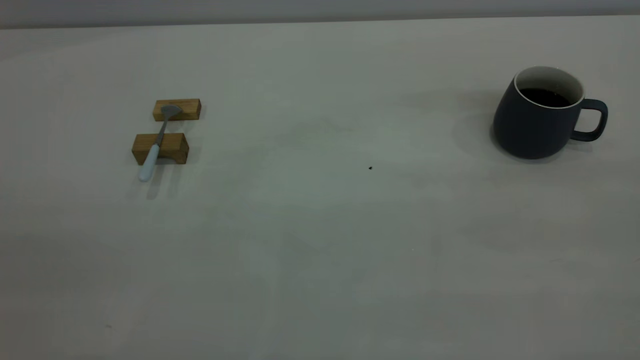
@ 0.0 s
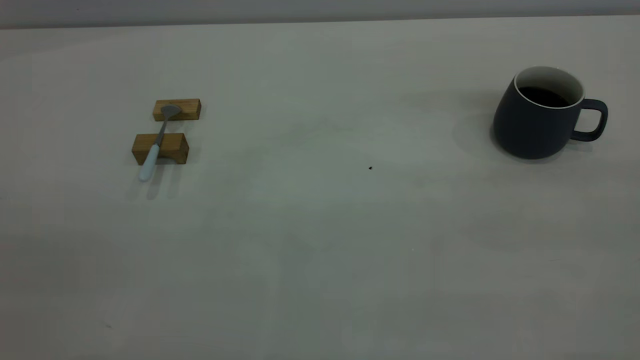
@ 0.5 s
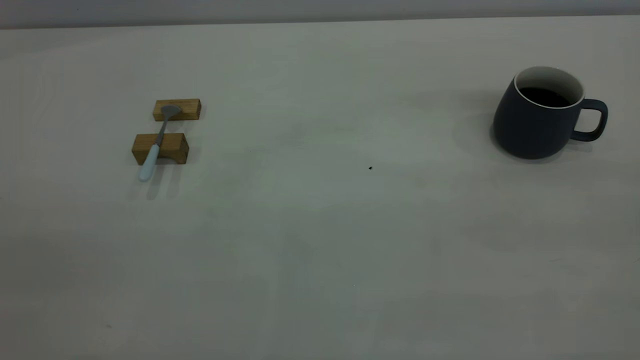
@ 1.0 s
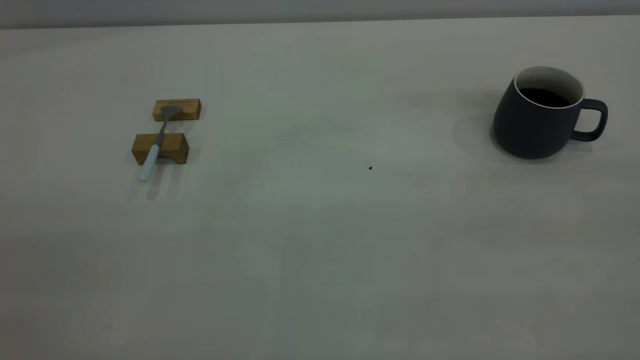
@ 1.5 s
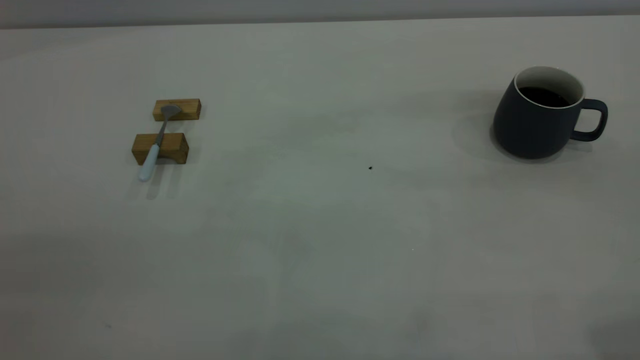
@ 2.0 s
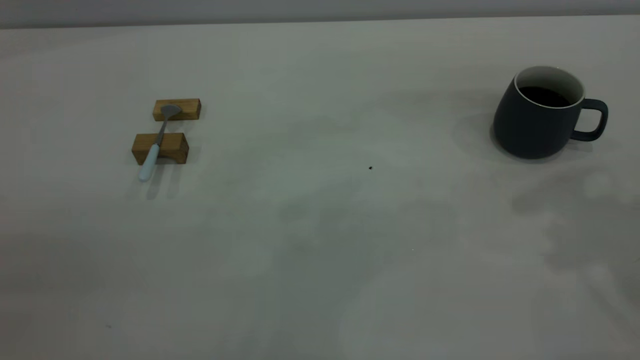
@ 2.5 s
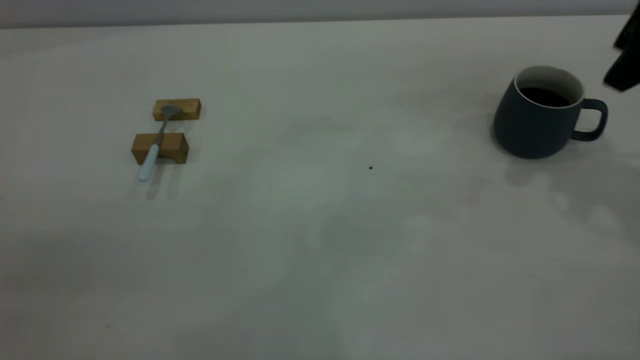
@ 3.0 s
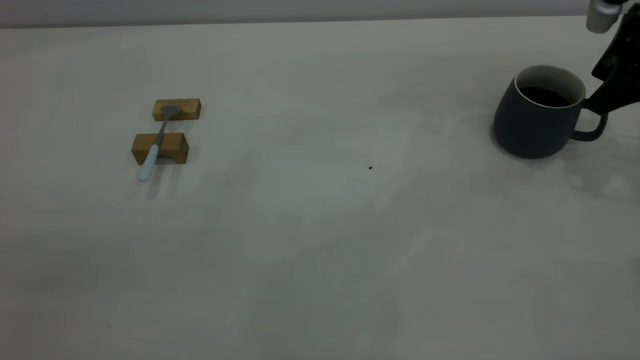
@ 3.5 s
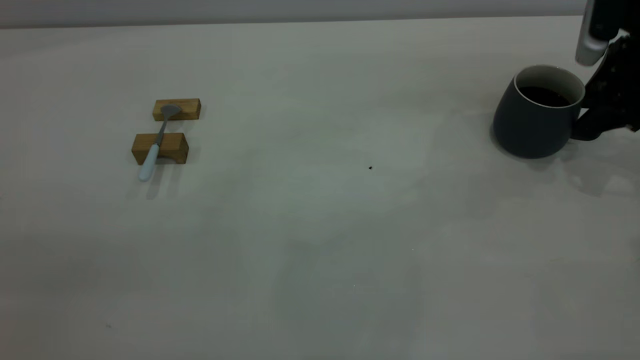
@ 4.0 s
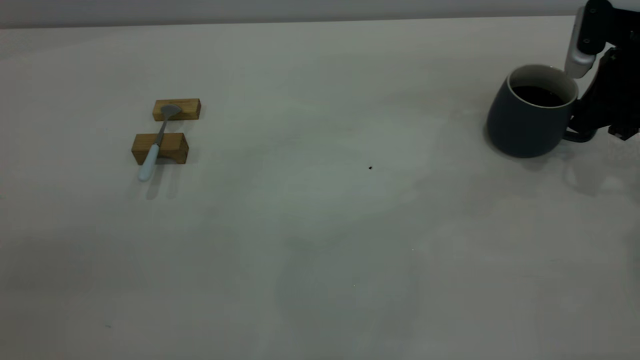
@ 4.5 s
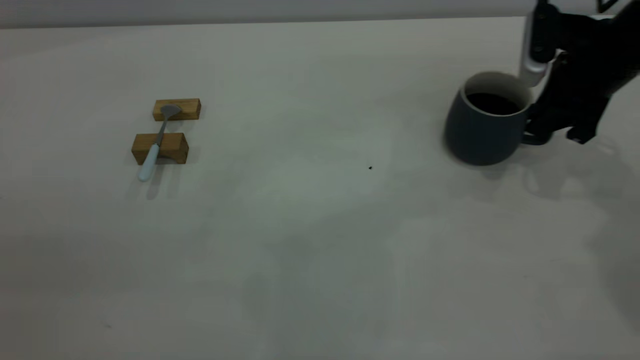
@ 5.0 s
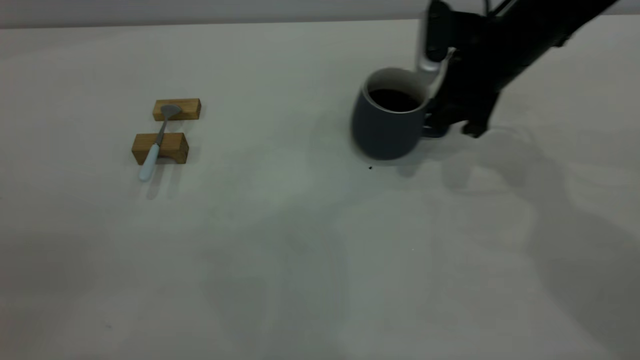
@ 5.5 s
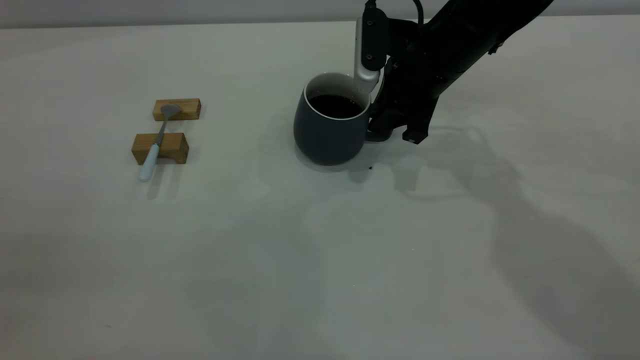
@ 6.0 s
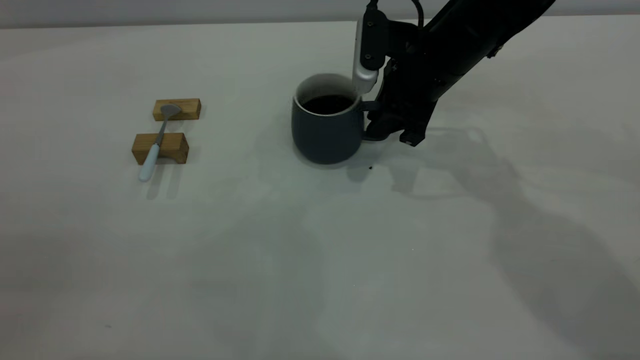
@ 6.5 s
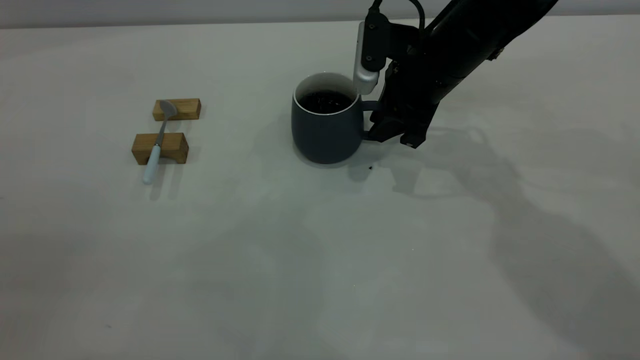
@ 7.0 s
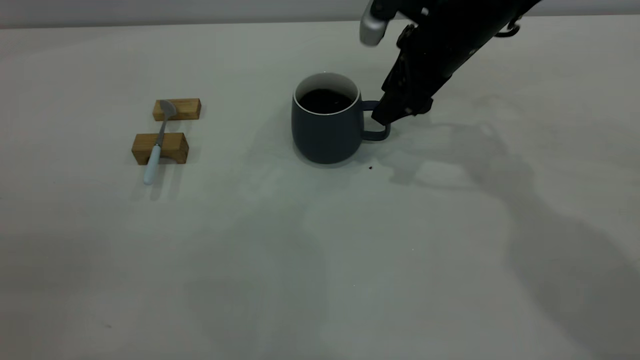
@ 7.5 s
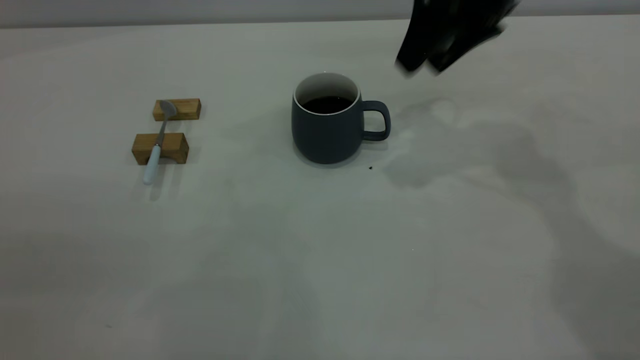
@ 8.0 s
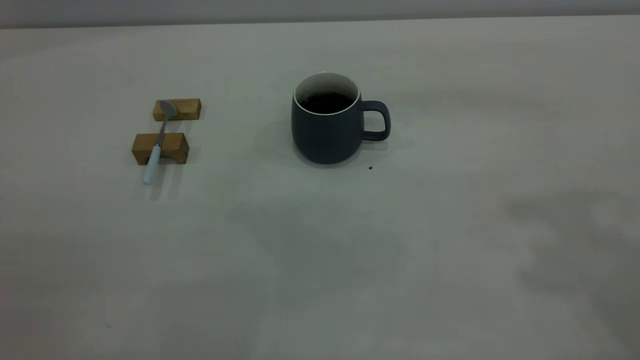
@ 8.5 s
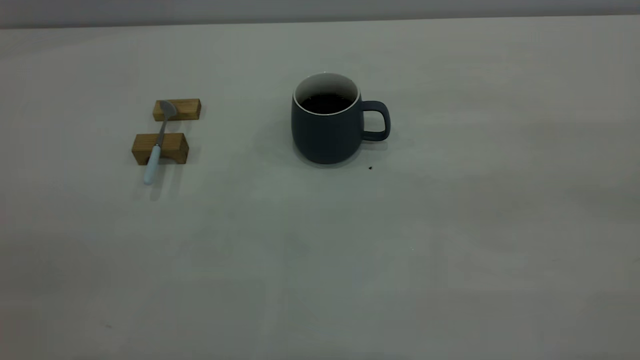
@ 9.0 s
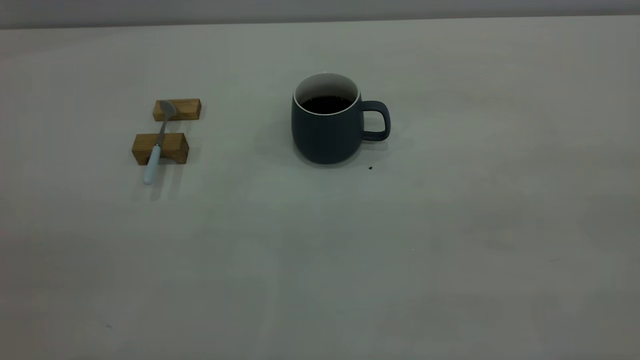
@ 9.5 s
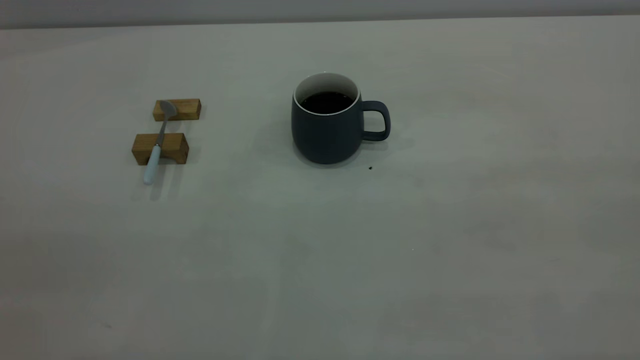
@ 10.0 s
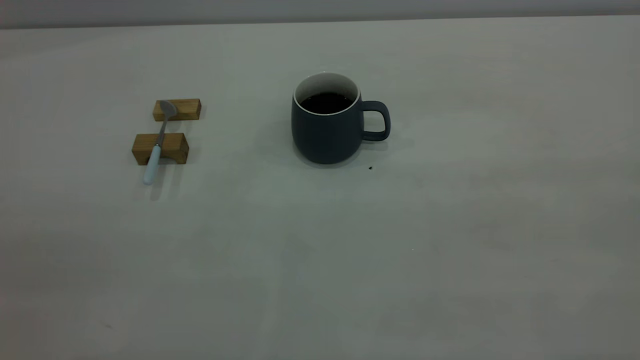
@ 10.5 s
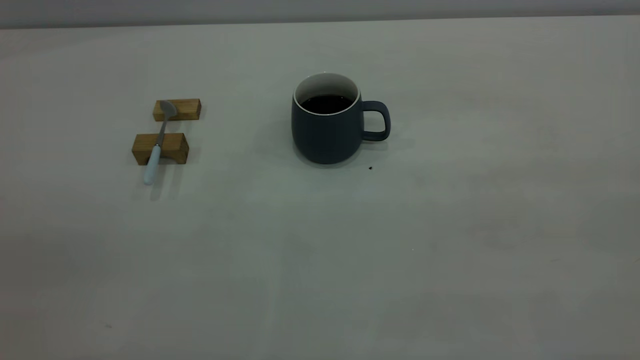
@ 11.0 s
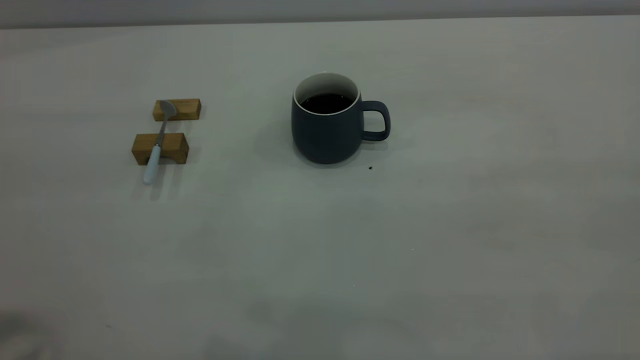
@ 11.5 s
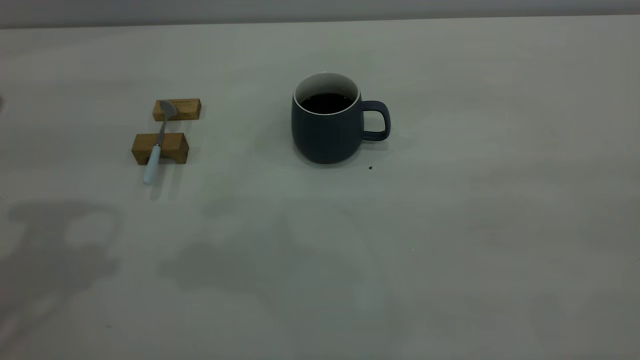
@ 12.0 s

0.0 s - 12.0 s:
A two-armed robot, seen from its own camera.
Step, 0.0 s - 7.5 s: Move the cup with coffee to the center of view.
2.0 s - 4.0 s: The right gripper is displaced forward and downward by some 35 cm.
4.0 s - 6.0 s: The right gripper heads to the left, covering some 20 cm, and closes.
6.0 s - 8.0 s: The right gripper is displaced upward by roughly 15 cm, and opens up.
8.0 s - 10.0 s: The right gripper goes approximately 40 cm backward.

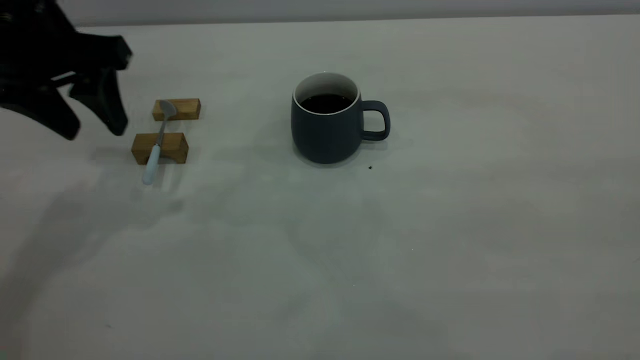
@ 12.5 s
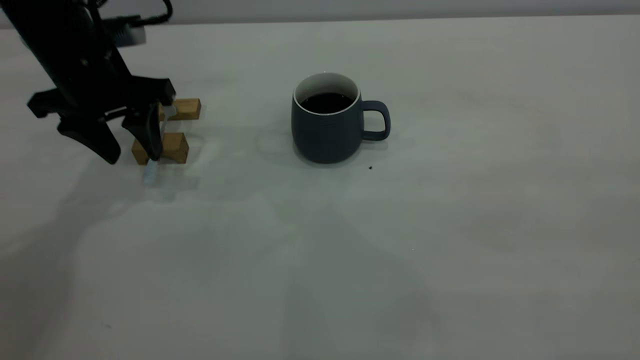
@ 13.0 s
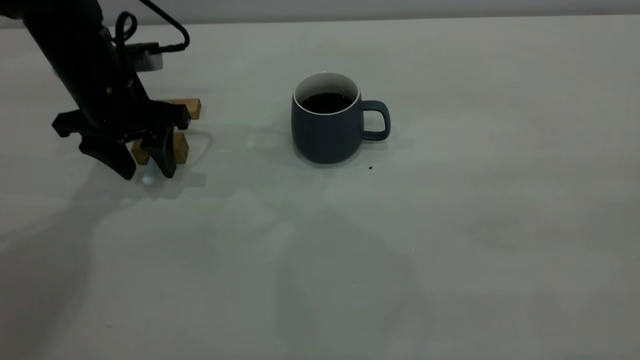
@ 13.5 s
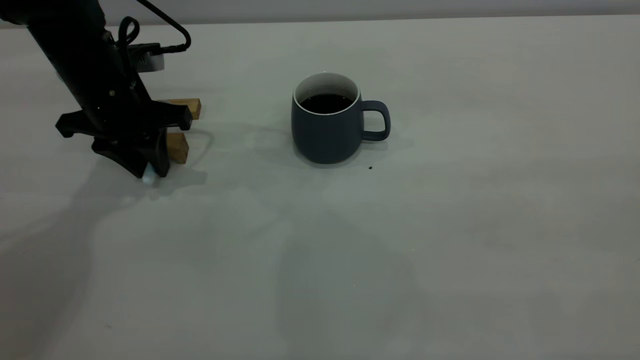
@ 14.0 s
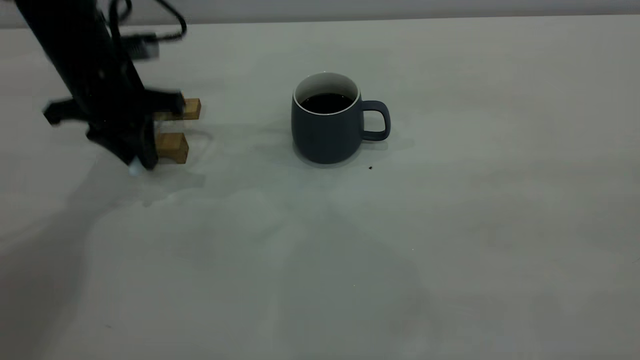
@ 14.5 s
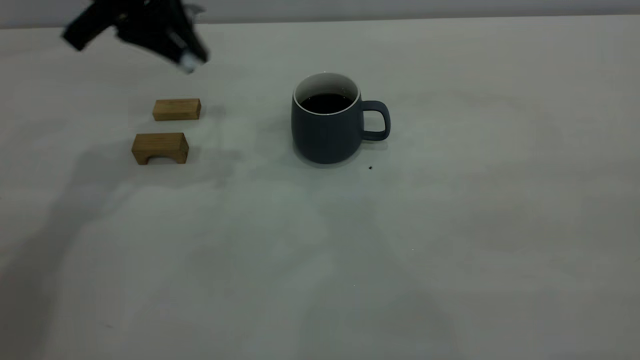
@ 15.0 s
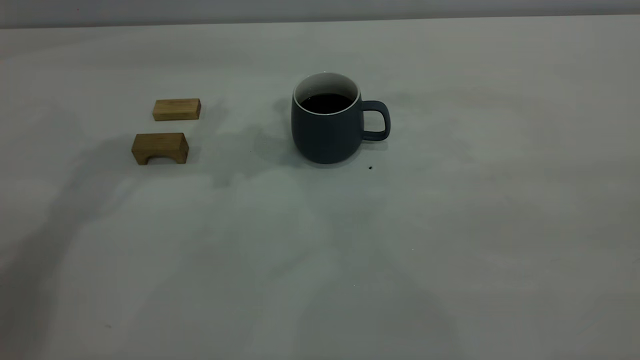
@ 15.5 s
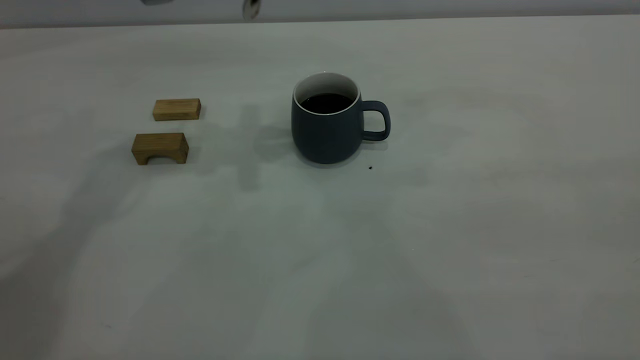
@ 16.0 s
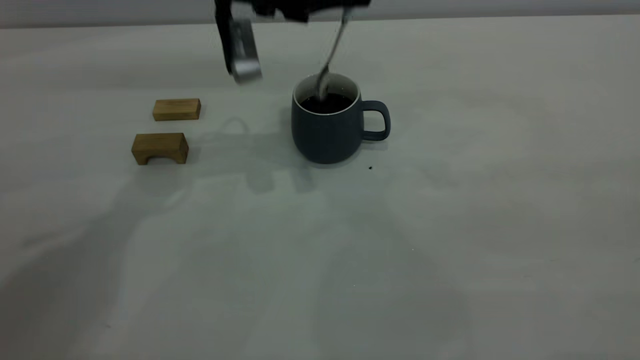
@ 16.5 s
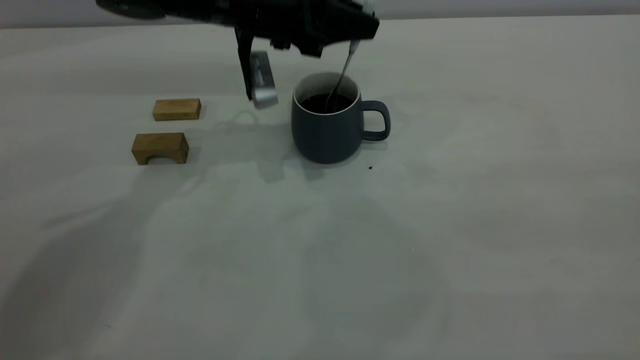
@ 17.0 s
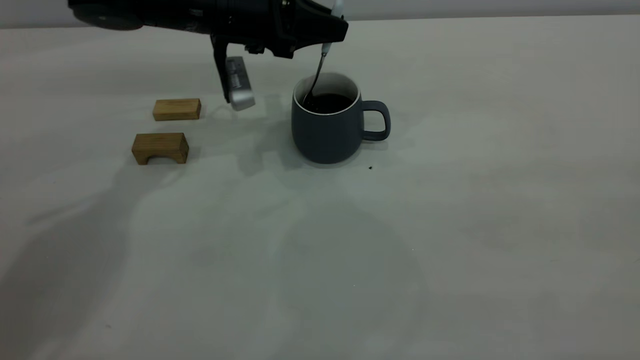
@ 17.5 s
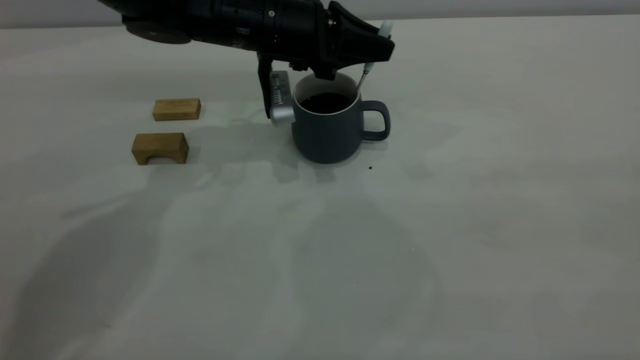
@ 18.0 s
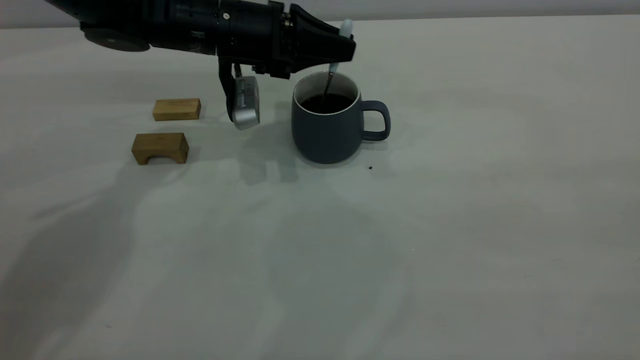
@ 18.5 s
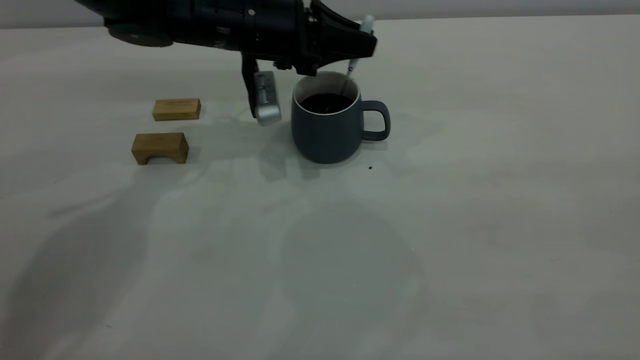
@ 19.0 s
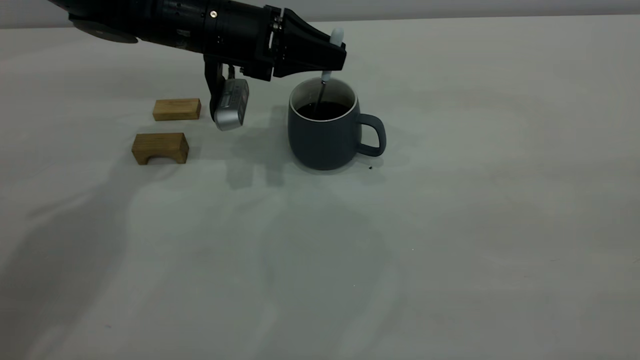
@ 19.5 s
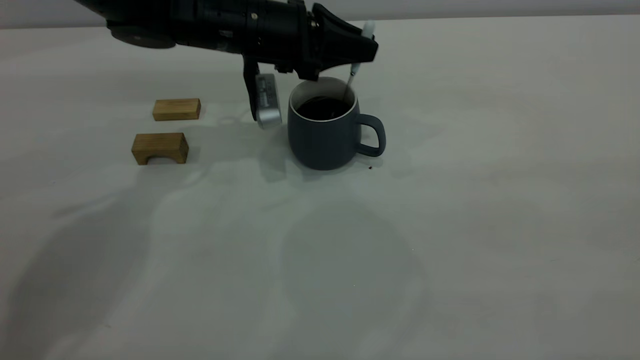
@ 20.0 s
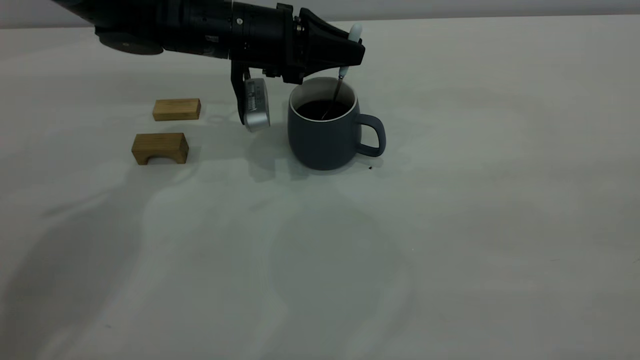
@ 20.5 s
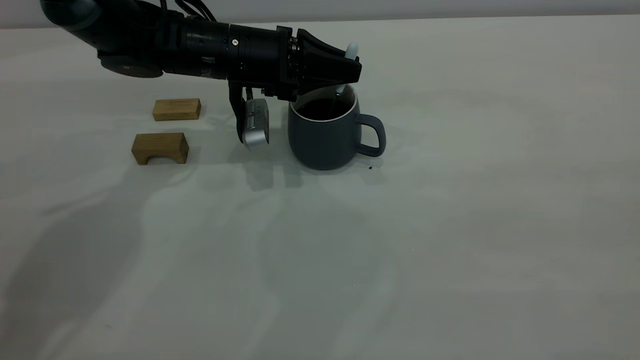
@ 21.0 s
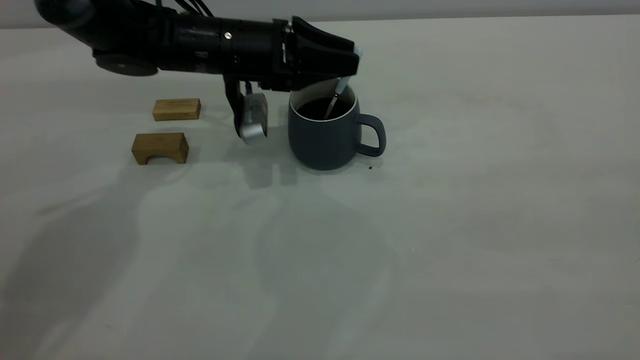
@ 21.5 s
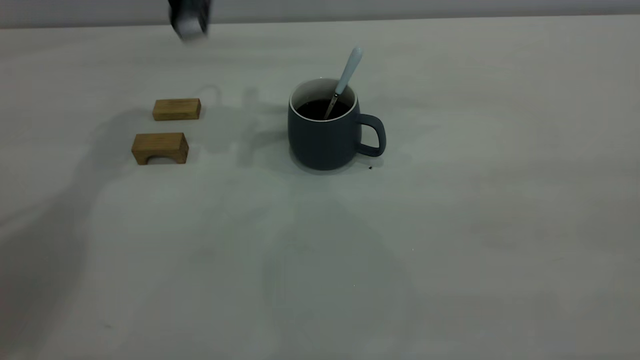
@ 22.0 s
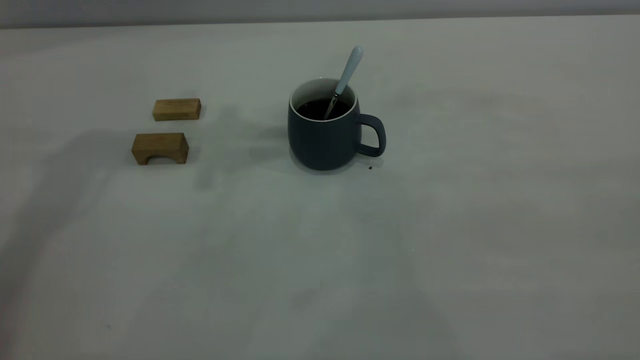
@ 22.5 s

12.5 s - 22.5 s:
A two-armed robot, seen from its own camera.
Step, 12.5 s - 14.5 s: Pick up the spoon.
Step, 15.0 s - 21.5 s: Stir the coffee in the cup.
12.5 s - 14.5 s: The left gripper shifts about 10 cm downward and forward, and closes.
14.5 s - 16.5 s: The left gripper is displaced to the right by approximately 15 cm, and moves roughly 15 cm upward and comes back.
16.5 s - 18.5 s: The left gripper shifts some 5 cm downward.
18.5 s - 20.5 s: The grippers stay close to where they were, moving slightly.
20.5 s - 22.5 s: The left gripper travels upward by some 30 cm, and opens up.
